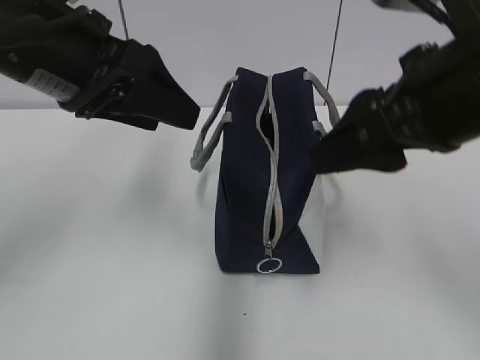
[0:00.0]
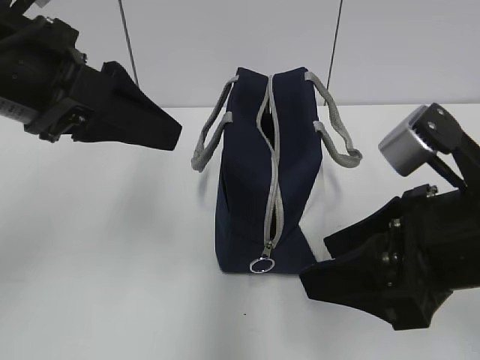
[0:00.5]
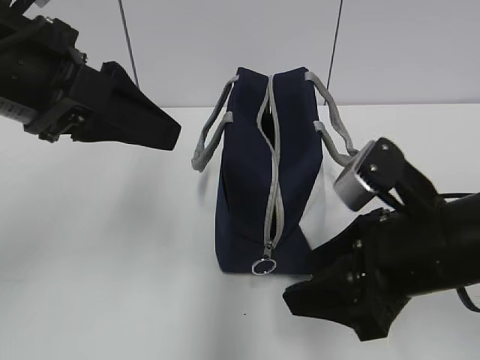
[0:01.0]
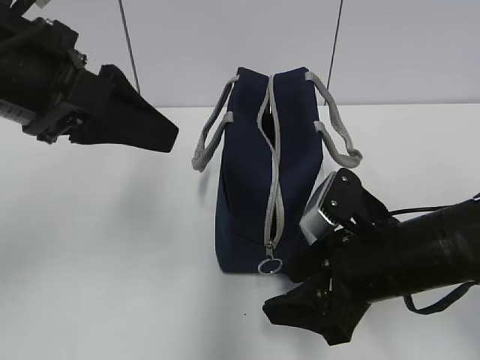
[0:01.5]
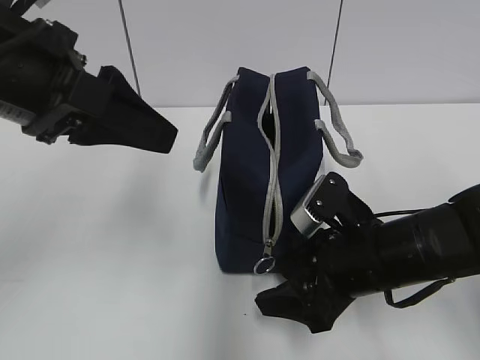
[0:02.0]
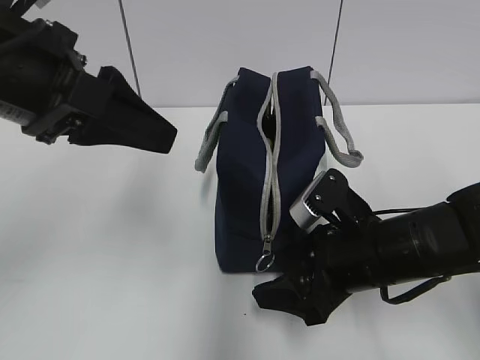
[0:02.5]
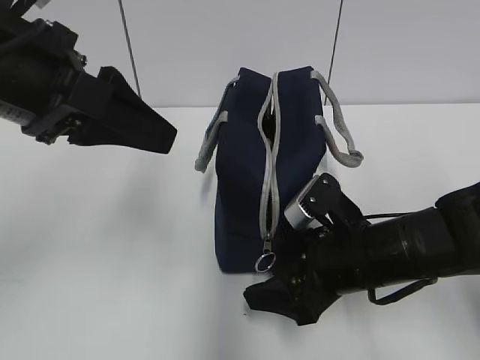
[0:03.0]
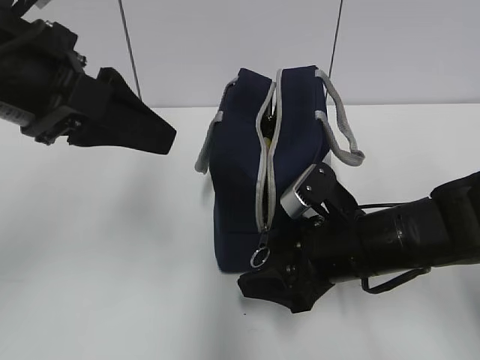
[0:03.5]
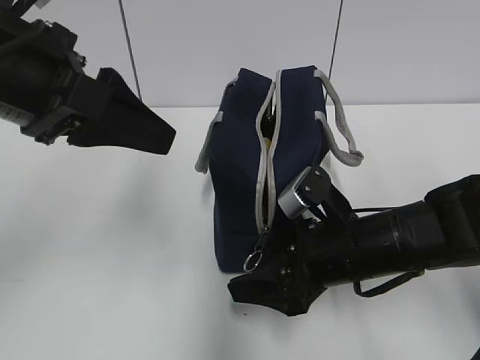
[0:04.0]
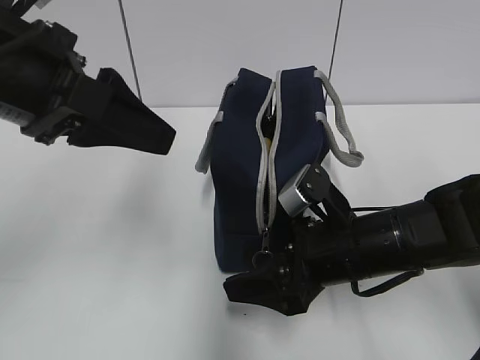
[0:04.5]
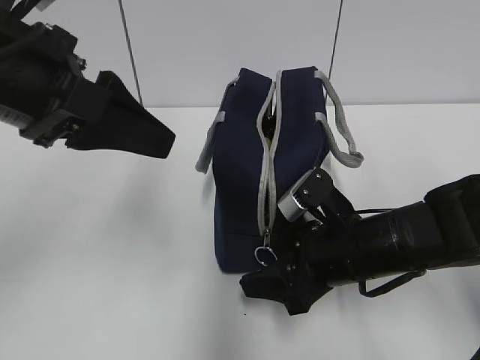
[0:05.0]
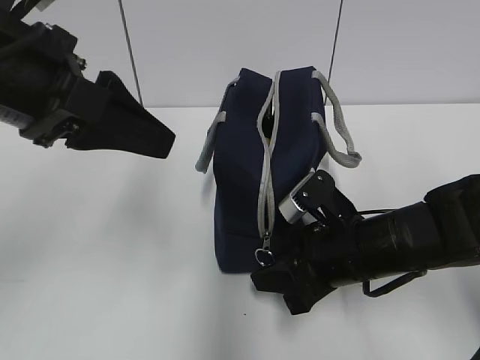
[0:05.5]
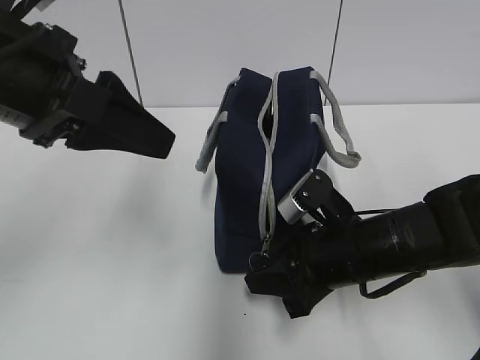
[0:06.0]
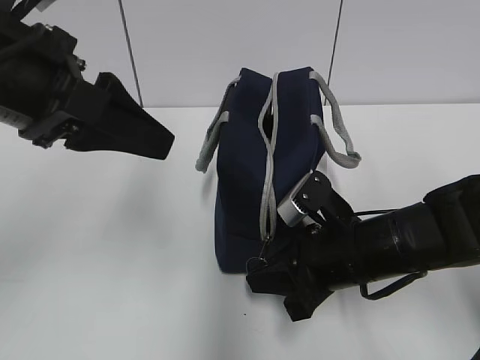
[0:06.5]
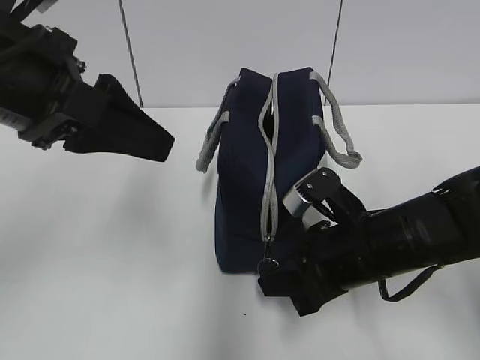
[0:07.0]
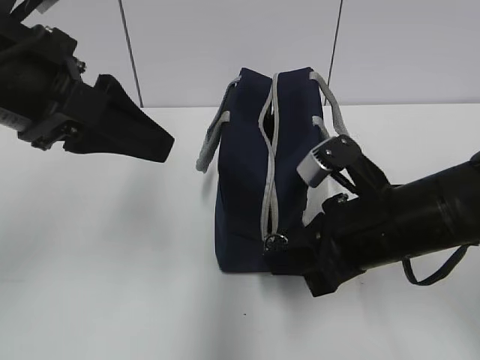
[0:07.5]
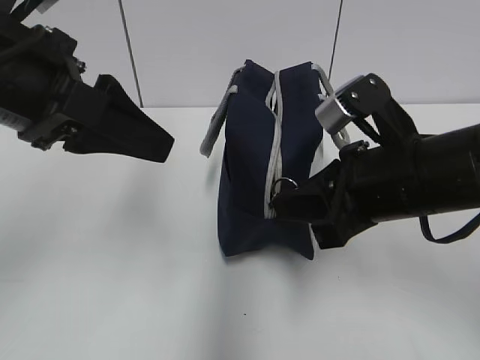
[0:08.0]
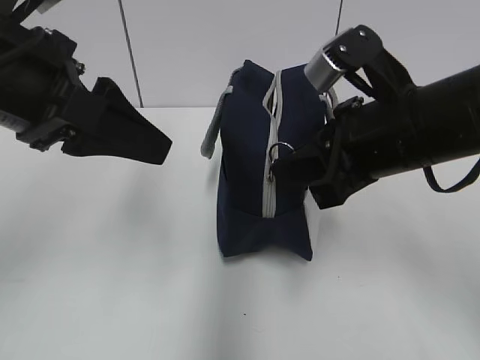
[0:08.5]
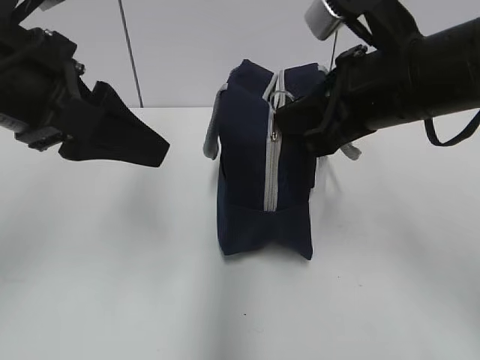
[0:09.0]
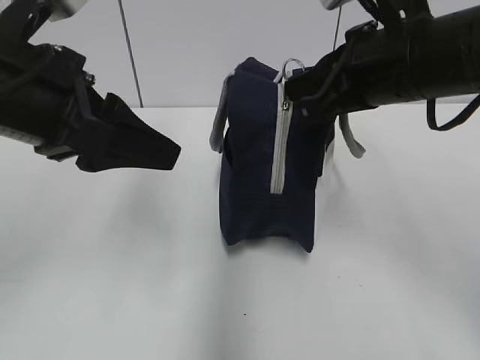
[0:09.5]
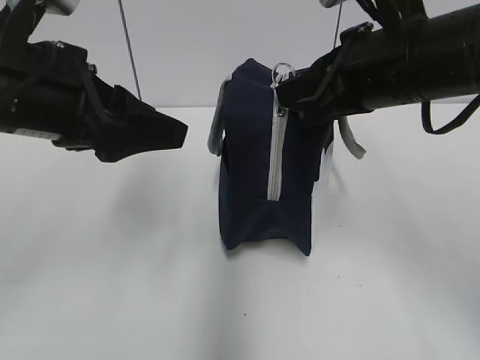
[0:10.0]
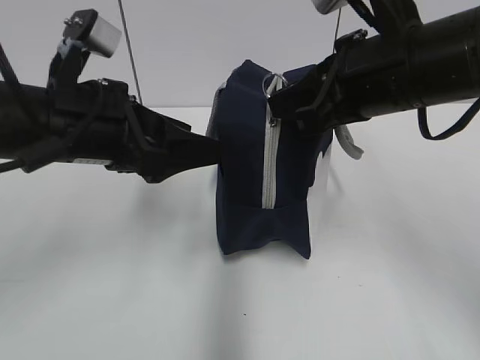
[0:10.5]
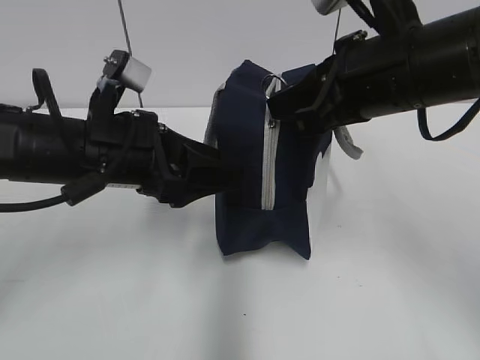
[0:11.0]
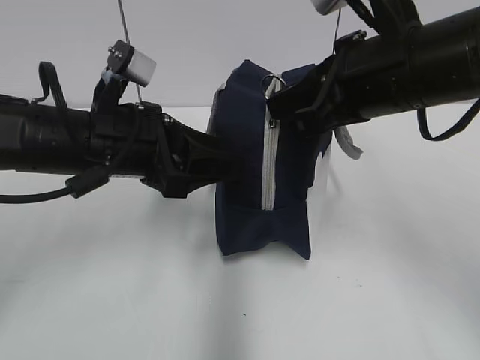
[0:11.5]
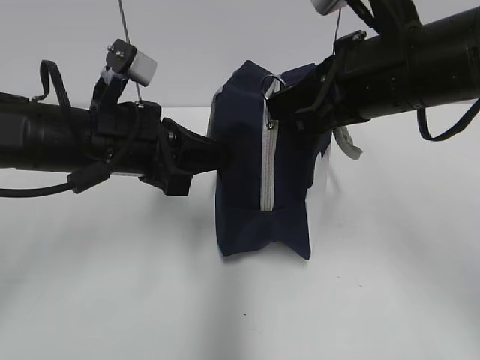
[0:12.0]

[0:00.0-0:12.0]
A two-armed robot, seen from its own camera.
0:00.0 to 0:02.0: The right gripper shifts approximately 20 cm downward.
0:02.0 to 0:04.0: The grippers stay close to where they were, moving slightly.
0:04.0 to 0:06.0: The right gripper closes its fingers.
0:06.0 to 0:08.0: The right gripper shifts some 10 cm upward.
0:08.0 to 0:10.0: The right gripper heads upward, covering approximately 5 cm.
0:10.0 to 0:12.0: The left gripper travels downward by roughly 10 cm, and closes.

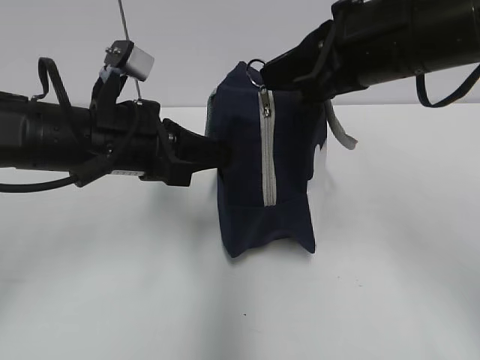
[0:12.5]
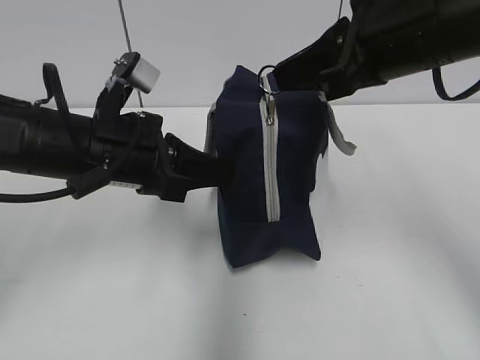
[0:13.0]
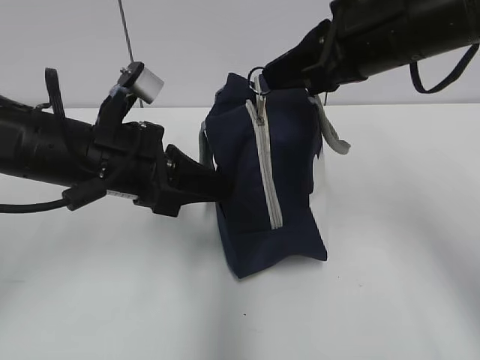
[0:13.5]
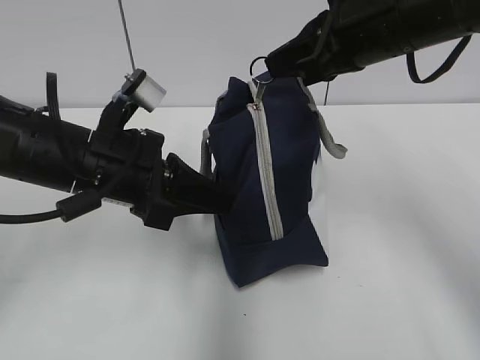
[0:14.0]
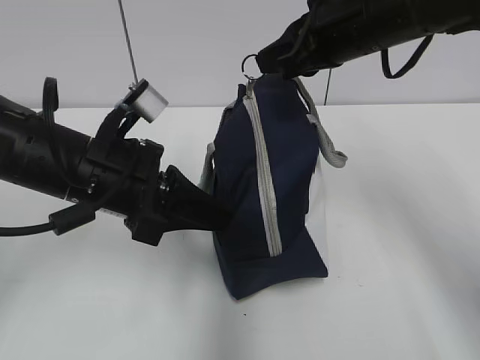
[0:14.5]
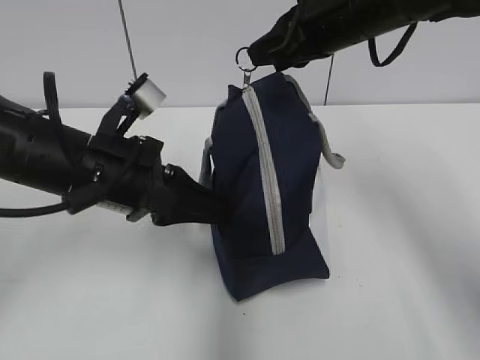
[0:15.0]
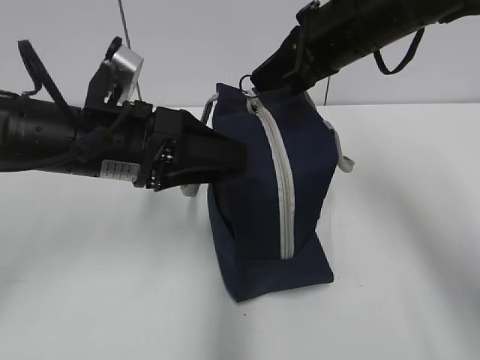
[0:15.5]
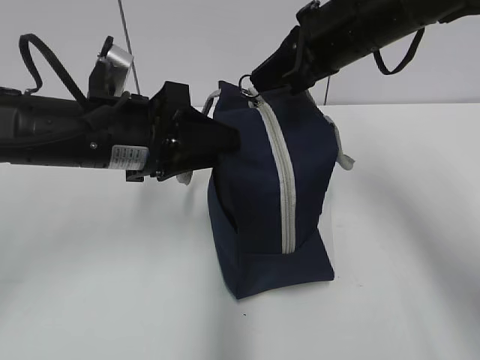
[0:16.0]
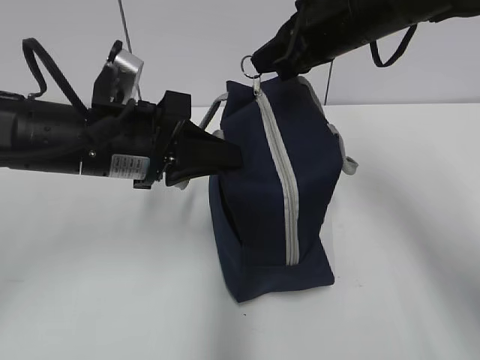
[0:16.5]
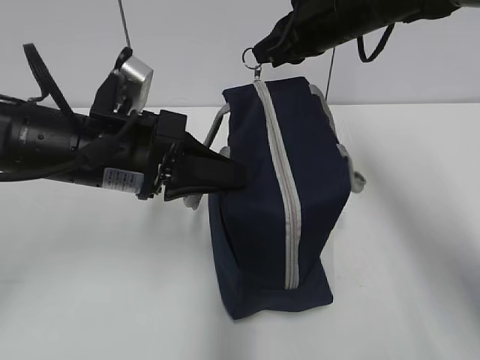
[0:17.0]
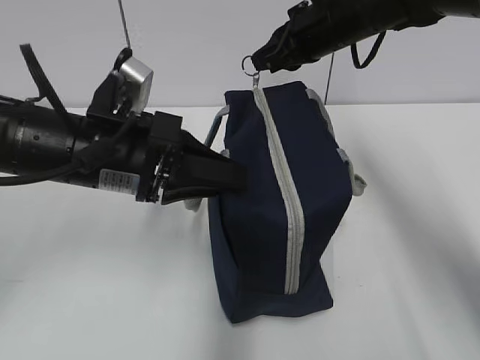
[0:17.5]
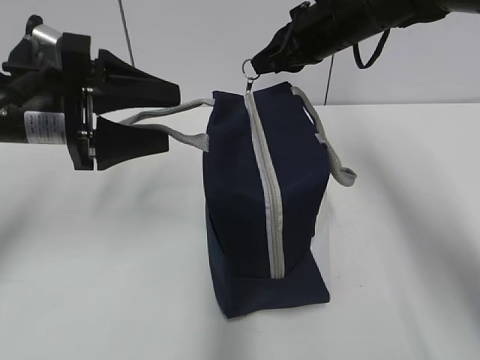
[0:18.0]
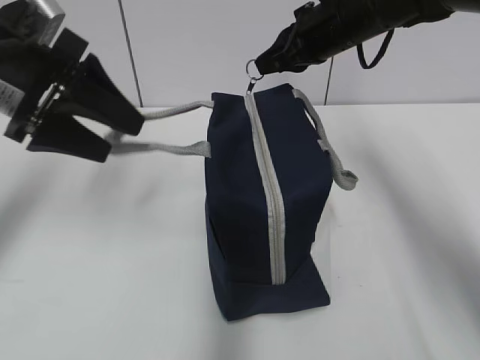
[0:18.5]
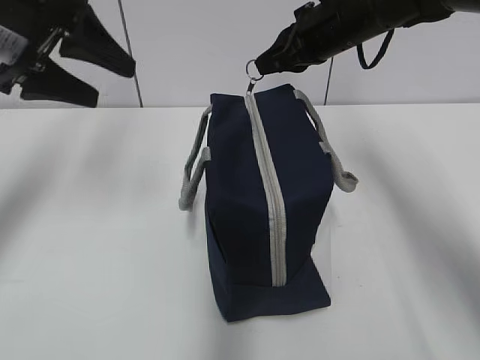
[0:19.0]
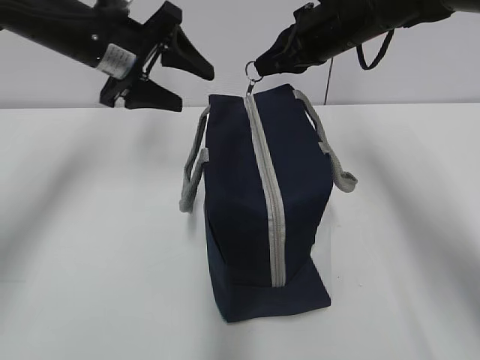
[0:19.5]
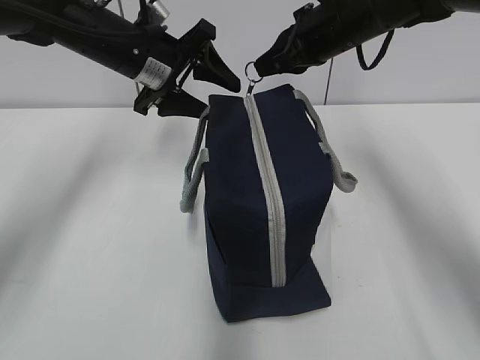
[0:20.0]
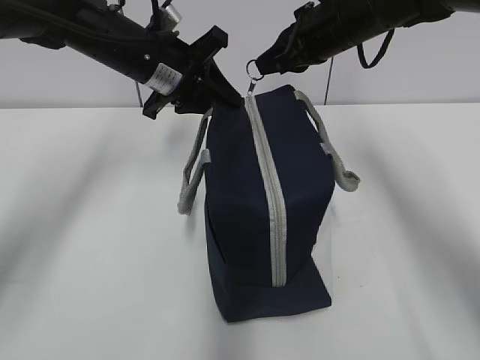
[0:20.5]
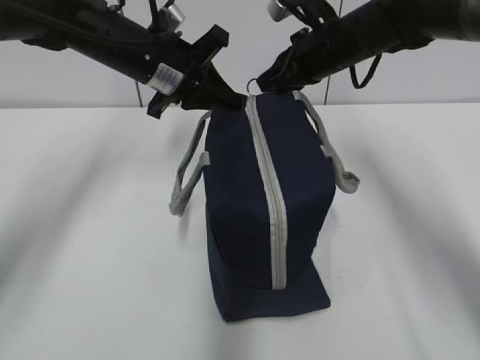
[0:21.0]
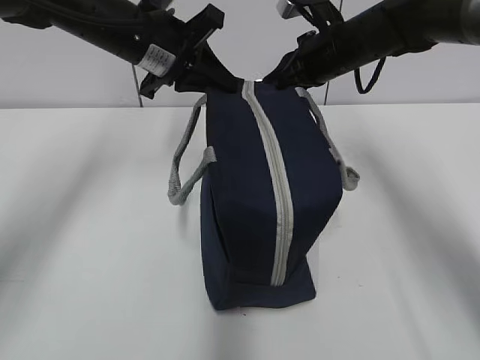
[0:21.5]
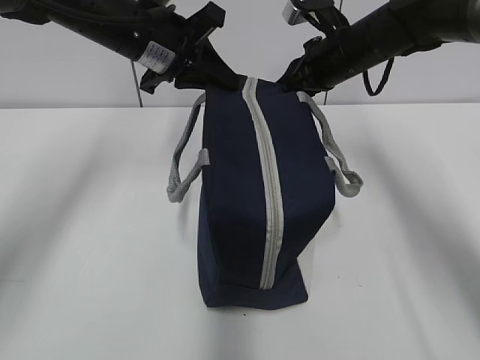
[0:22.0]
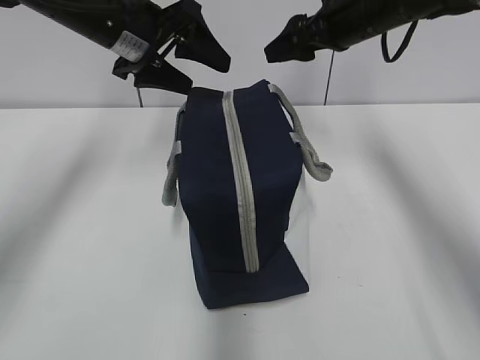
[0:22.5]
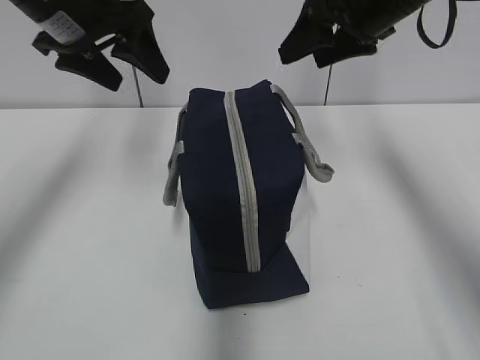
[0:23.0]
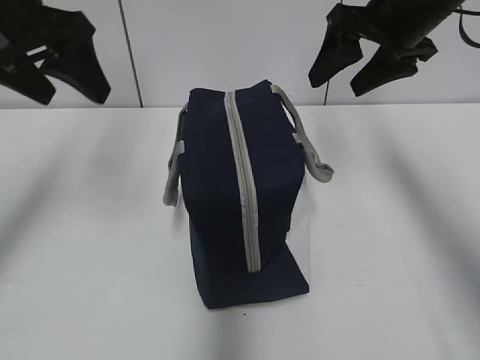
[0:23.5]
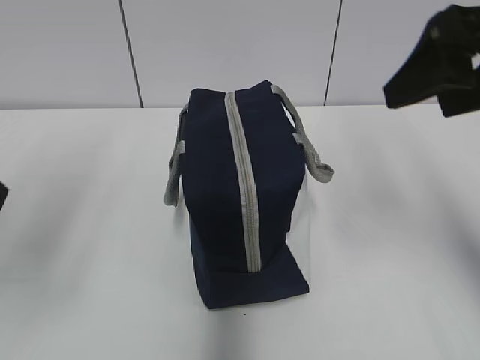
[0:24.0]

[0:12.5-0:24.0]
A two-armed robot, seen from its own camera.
Step, 0:12.5 to 0:17.5: Grab the lunch bag with your left hand.
Step, 0:18.0 to 0:22.0: Pull the zipper with your right hand.
0:12.5 to 0:14.5: The right gripper goes approximately 10 cm forward.
0:14.5 to 0:16.5: The left gripper opens, then closes again.
0:16.5 to 0:18.5: The left gripper moves to the left and upward, some 10 cm, and opens its fingers; the right gripper travels forward by about 5 cm.
0:18.5 to 0:20.0: The left gripper shifts some 15 cm forward and to the right.
0:20.0 to 0:22.0: The right gripper changes place by roughly 5 cm. Meanwhile the left gripper closes up.
0:22.0 to 0:24.0: The left gripper heads backward and to the left, covering roughly 25 cm, and opens. Meanwhile the right gripper travels backward and upward by approximately 25 cm, and opens.
